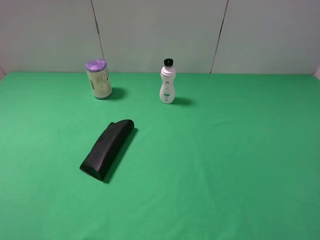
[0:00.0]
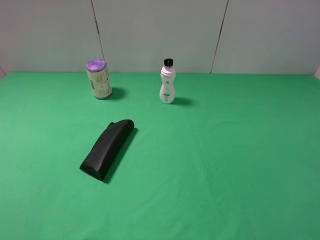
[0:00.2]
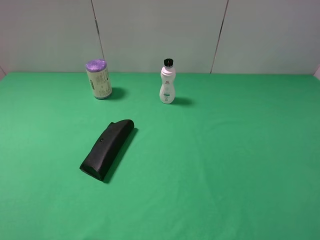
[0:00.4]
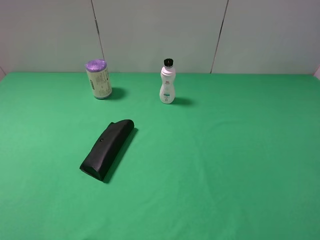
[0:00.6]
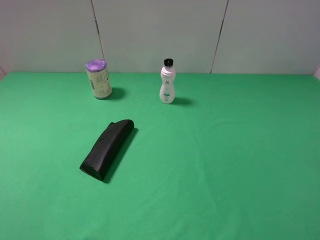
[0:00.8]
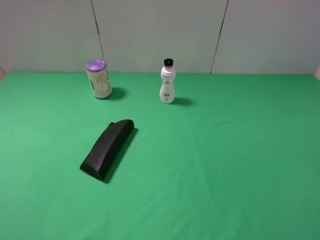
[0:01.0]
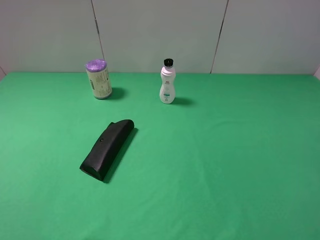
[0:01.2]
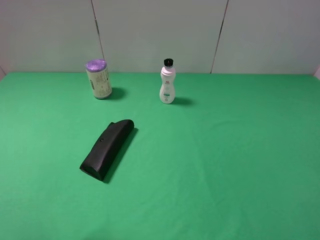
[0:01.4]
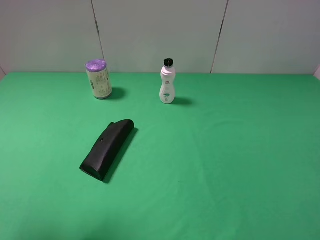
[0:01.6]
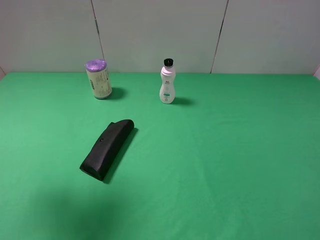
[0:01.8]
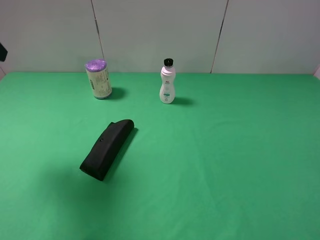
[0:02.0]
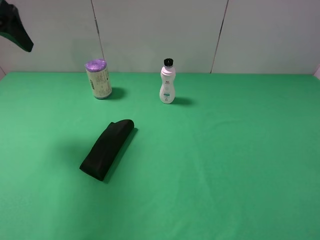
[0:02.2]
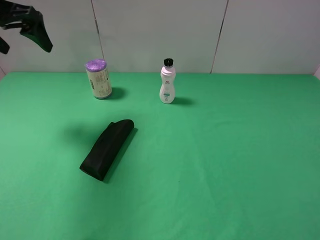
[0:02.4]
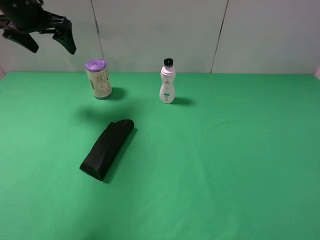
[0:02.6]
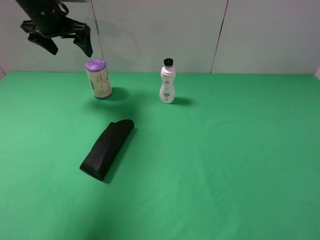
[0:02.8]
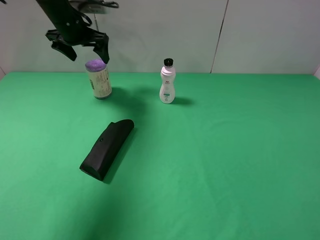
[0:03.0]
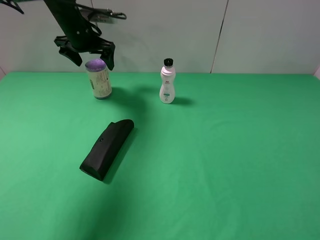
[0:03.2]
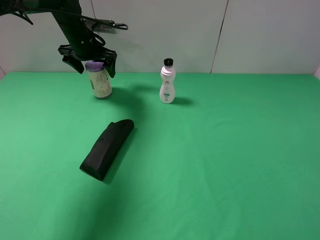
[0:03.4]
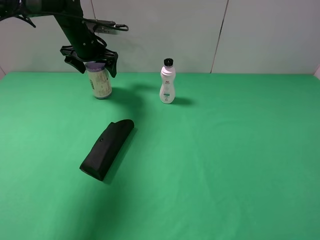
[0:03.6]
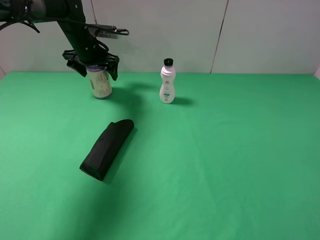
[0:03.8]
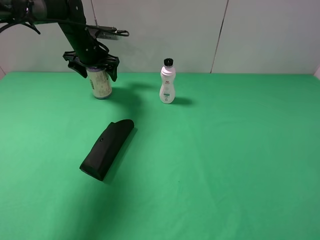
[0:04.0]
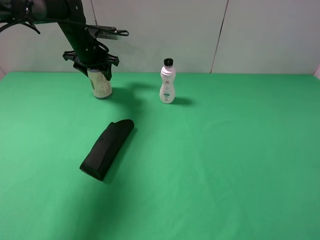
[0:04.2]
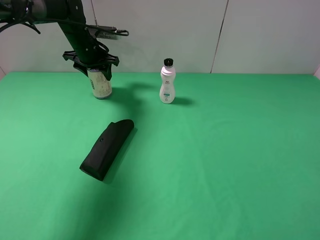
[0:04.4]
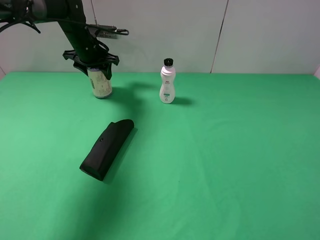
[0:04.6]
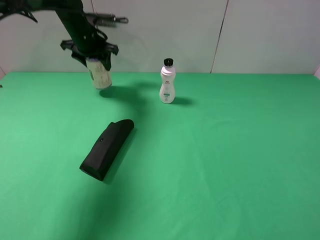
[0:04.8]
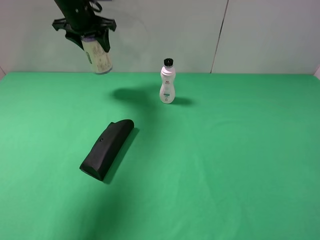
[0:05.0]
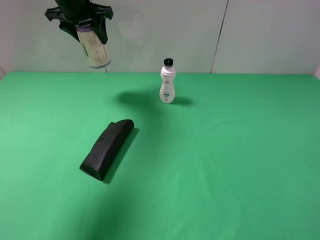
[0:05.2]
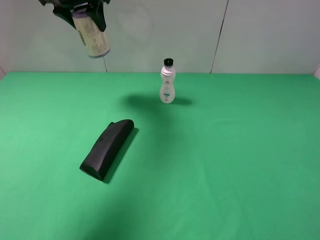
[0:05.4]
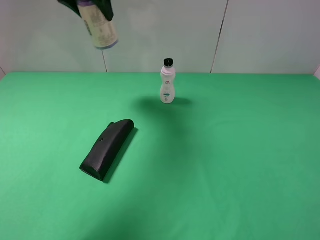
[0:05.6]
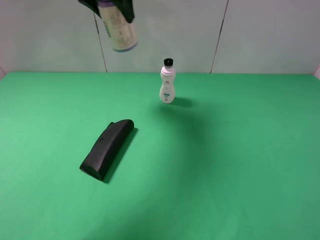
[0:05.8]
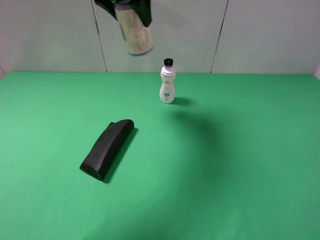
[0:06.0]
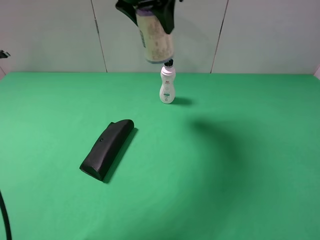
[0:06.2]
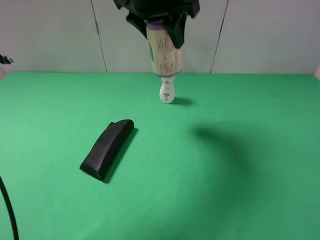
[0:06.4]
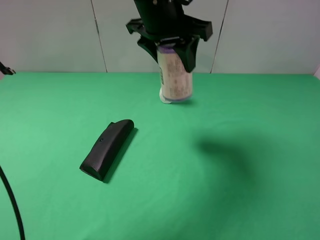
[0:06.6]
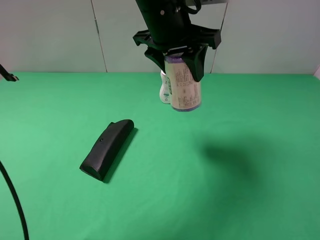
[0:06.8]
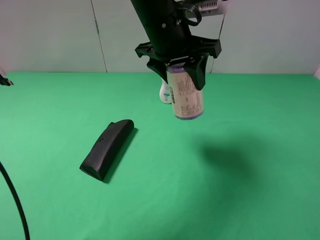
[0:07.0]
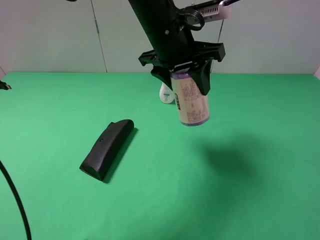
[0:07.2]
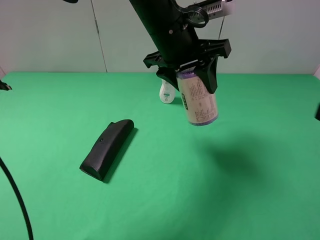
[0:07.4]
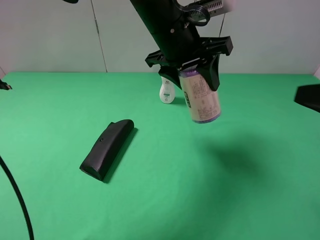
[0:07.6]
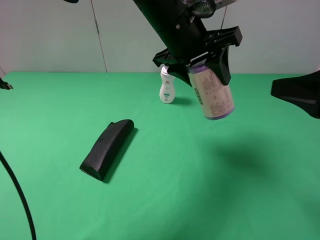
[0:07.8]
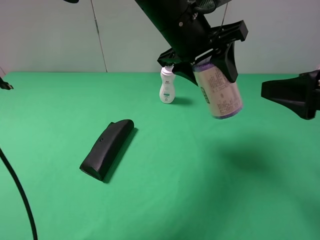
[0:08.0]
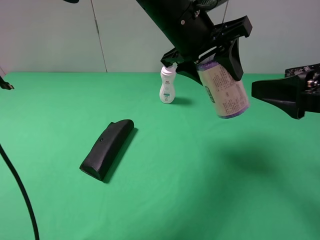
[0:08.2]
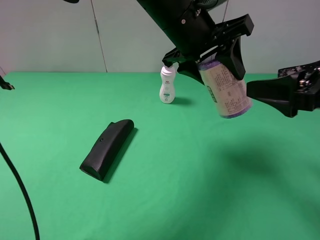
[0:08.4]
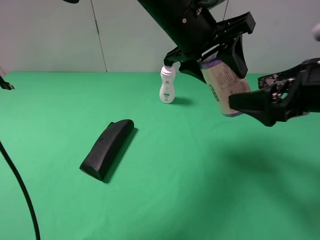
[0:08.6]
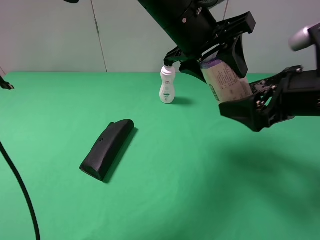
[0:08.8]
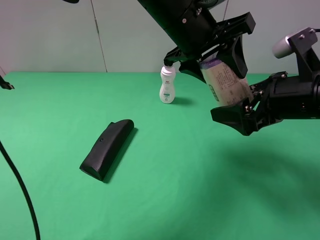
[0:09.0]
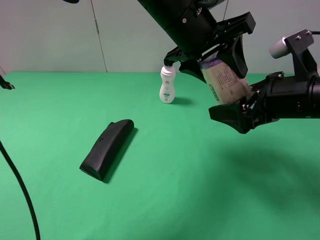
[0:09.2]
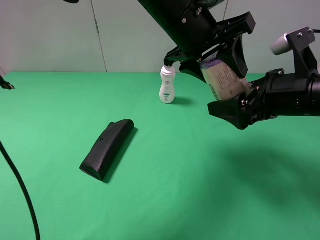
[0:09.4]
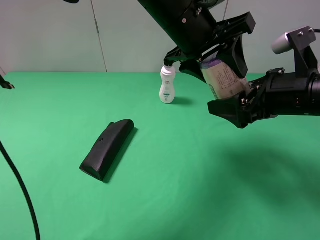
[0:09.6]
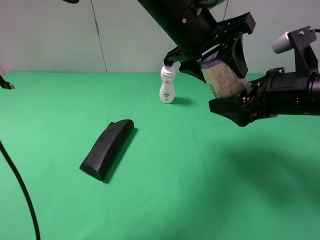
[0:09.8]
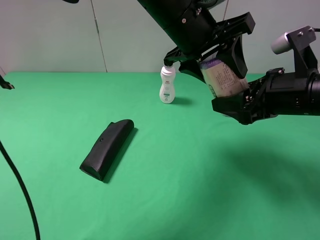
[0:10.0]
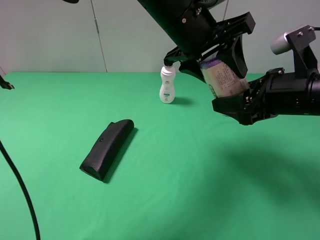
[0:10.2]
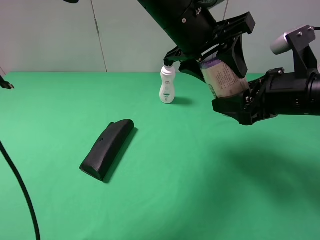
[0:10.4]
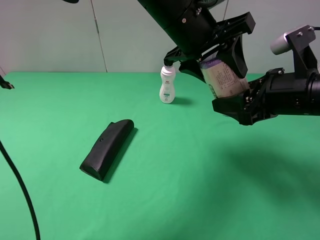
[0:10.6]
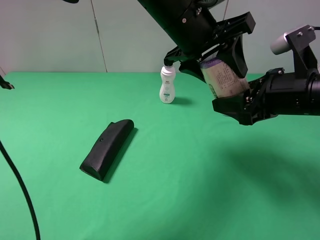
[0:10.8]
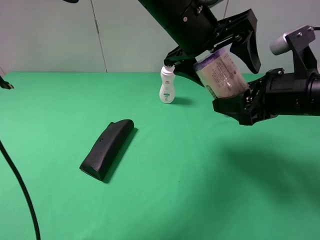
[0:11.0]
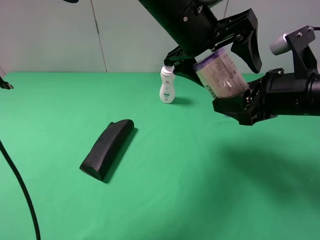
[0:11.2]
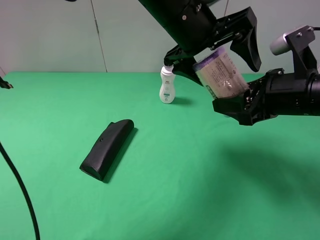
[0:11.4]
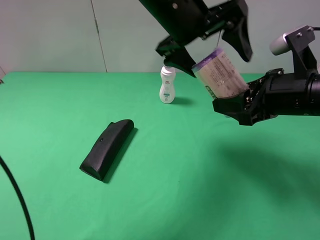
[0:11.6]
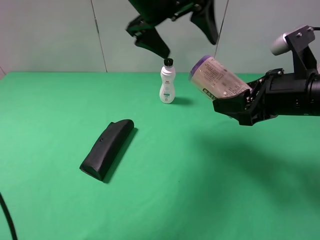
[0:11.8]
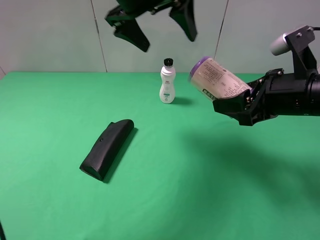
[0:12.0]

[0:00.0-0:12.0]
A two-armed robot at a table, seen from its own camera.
Task of the whole recording: use the left gripper to pick up the item and transfer it from the left gripper to the right gripper.
Step, 0:00.0 to 0:04.2: Use the left gripper to grab the purple garbage bag on the left side of the table.
Step, 0:04.4 to 0:11.2: Pass the purple garbage bag to the right gripper.
0:00.0 to 0:01.6: The left gripper shifts about 15 cm forward and upward.
0:01.6 to 0:03.0: The left gripper moves forward, approximately 35 cm.
0:03.0 to 0:04.4: The left gripper is displaced downward by about 5 cm, and closes.
0:04.4 to 0:06.0: The left gripper is displaced upward, to the right and backward by about 25 cm.
0:06.0 to 0:07.6: The right gripper is displaced forward by about 10 cm; the left gripper heads to the right, downward and backward, covering roughly 15 cm.
0:07.6 to 0:09.0: The right gripper is displaced forward, downward and to the left by approximately 10 cm.
0:09.0 to 0:10.4: The right gripper closes up.
0:10.4 to 0:12.0: The left gripper is displaced to the left and upward by roughly 10 cm, and opens.

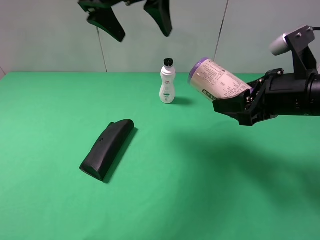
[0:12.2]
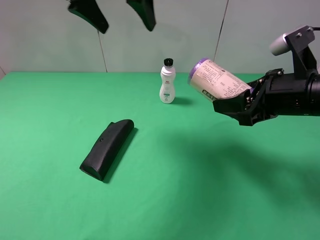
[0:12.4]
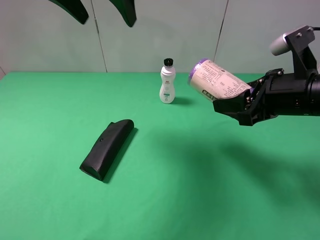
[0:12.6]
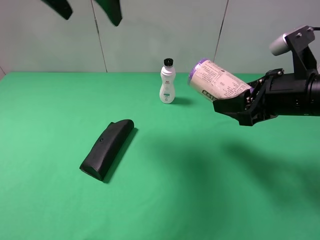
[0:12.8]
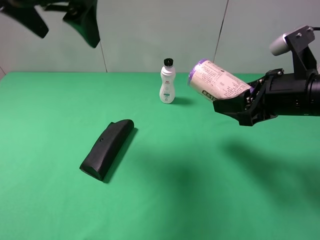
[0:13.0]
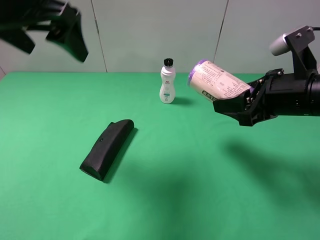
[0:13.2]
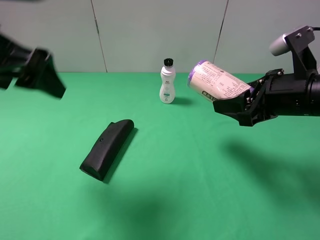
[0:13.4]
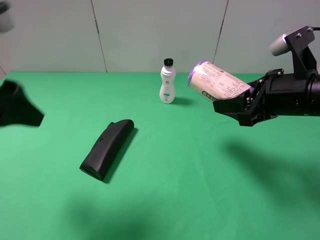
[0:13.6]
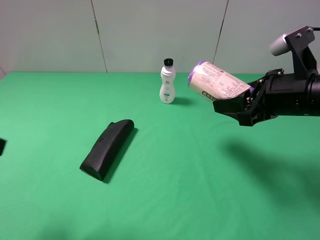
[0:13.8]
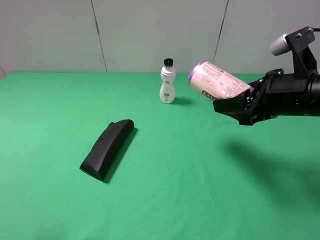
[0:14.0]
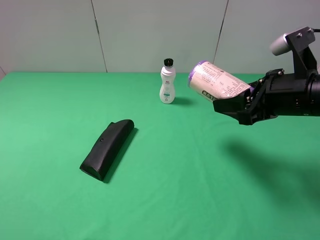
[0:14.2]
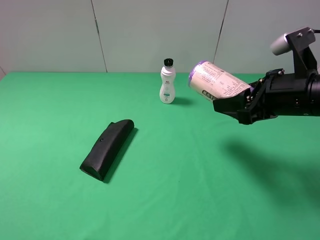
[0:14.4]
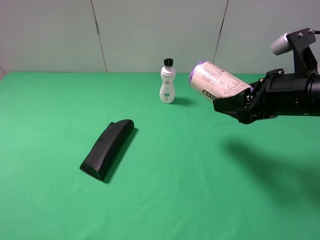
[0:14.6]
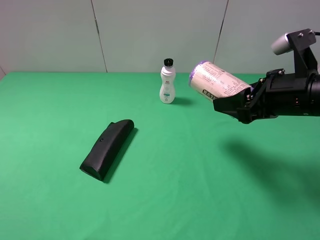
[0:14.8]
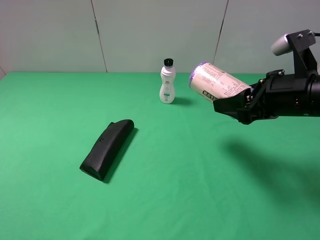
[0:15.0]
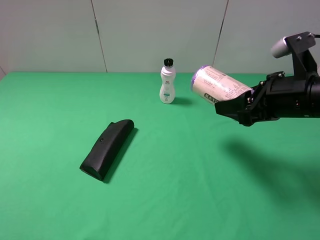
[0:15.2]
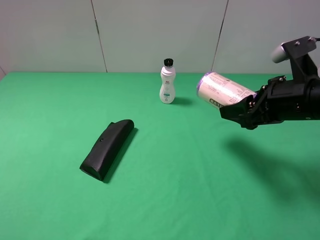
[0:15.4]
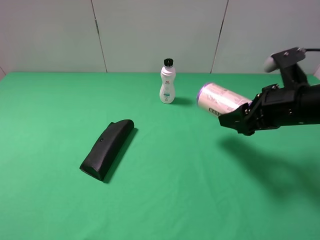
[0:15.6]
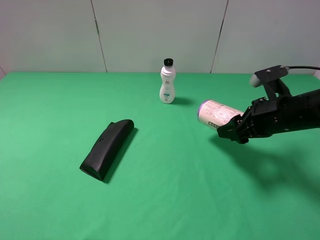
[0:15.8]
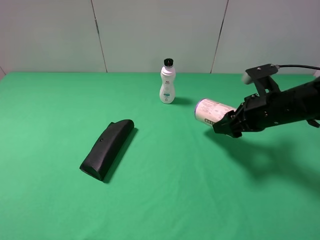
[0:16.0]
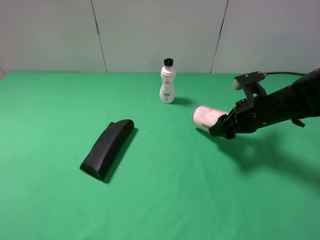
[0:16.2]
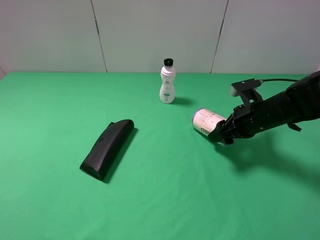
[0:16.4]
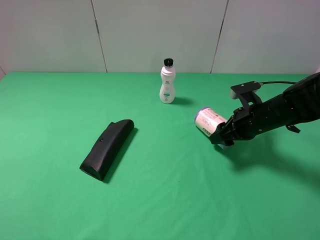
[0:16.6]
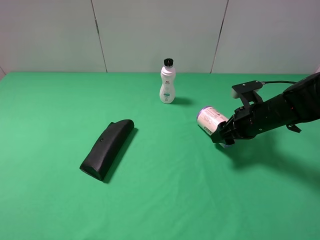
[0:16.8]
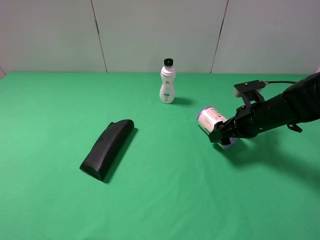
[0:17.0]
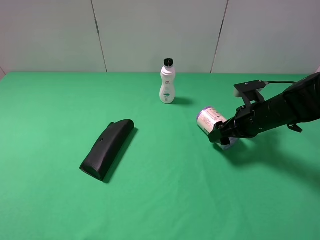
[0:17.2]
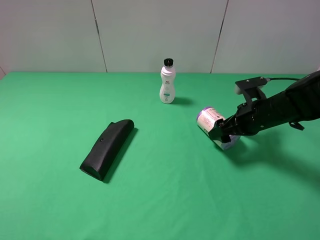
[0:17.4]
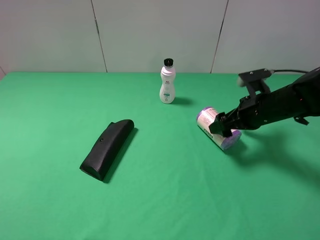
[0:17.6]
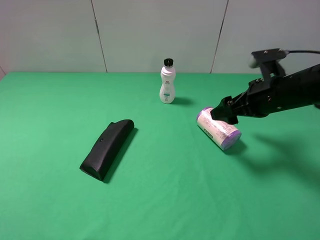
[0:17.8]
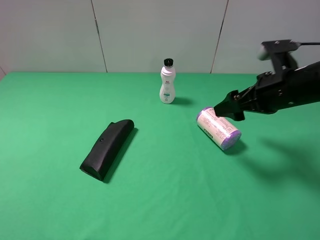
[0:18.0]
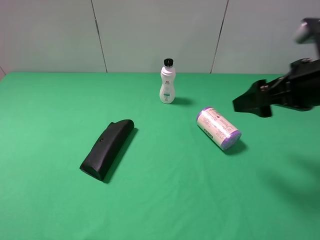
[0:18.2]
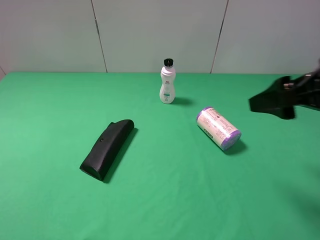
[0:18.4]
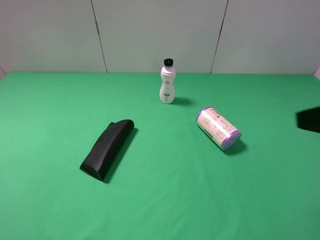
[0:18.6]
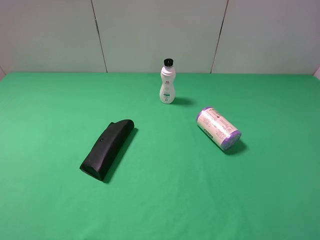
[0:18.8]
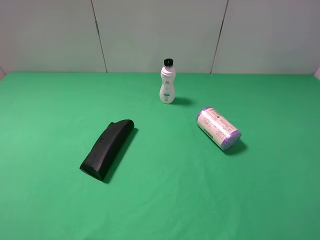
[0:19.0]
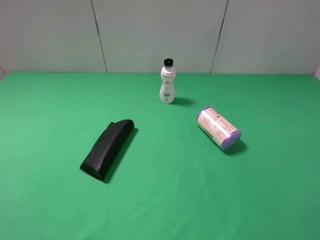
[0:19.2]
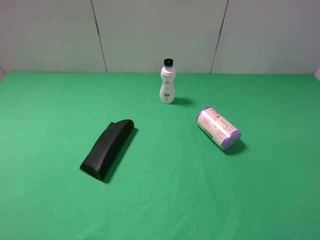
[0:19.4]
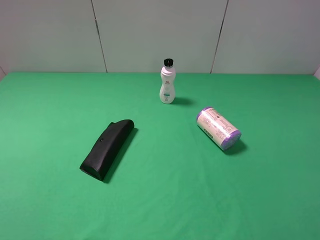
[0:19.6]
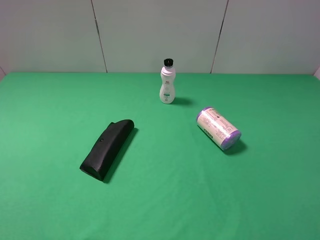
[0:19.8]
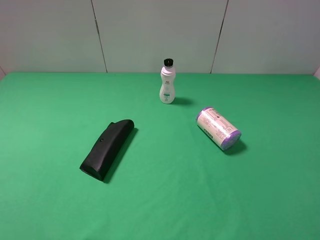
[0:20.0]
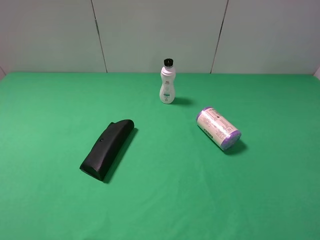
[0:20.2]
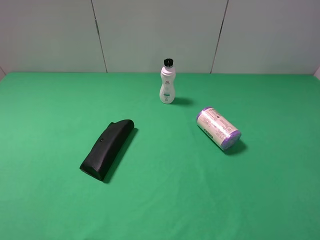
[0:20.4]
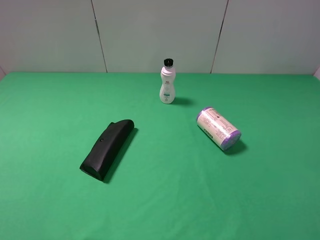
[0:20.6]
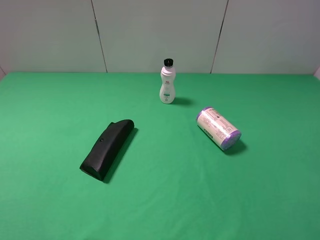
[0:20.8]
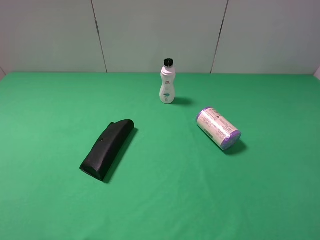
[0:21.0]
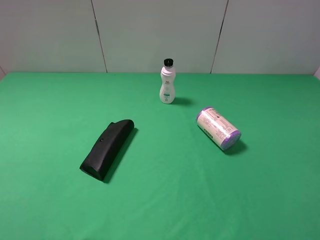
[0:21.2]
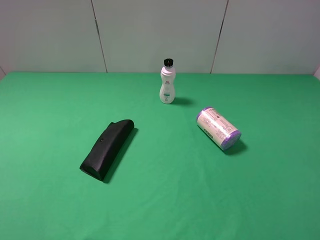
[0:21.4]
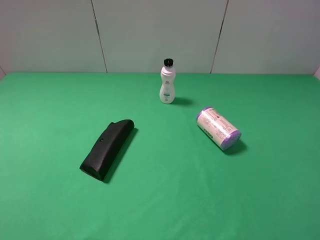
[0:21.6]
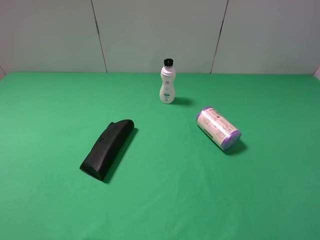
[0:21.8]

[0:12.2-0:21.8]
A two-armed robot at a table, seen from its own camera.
Task of the whole recording: use the left gripper to pick up the item and transfer it from the left gripper to the right gripper.
Step, 0:12.2 to 0:17.6: The right gripper places purple garbage bag on the right side of the table.
0:12.2 to 0:13.8: The left gripper heads backward and to the left, covering roughly 30 cm.
0:13.8 to 0:15.4: The left gripper goes some 10 cm backward.
0:15.4 to 0:17.0: The right gripper heads downward and forward, covering about 15 cm, and opens.
0:17.0 to 0:18.6: The right gripper shifts approximately 30 cm backward and upward.
0:18.6 to 0:20.2: The right gripper goes some 10 cm backward.
